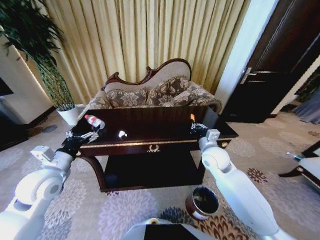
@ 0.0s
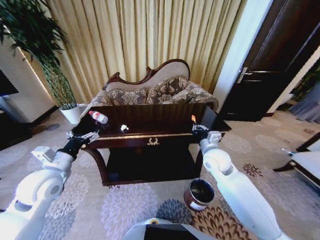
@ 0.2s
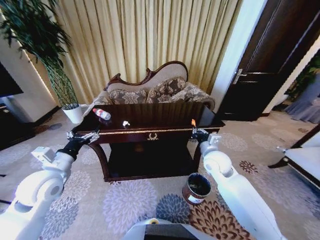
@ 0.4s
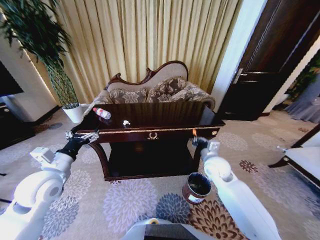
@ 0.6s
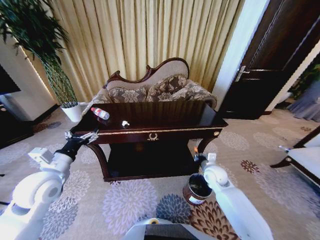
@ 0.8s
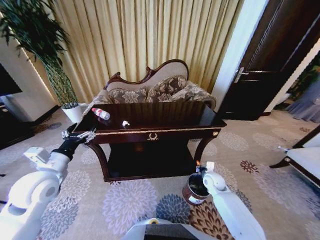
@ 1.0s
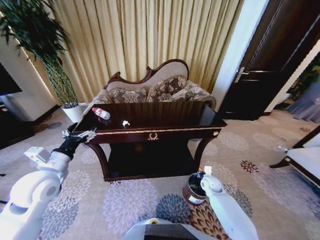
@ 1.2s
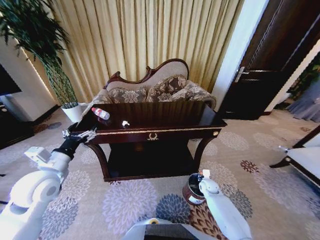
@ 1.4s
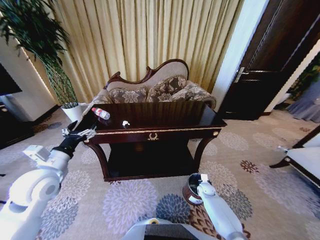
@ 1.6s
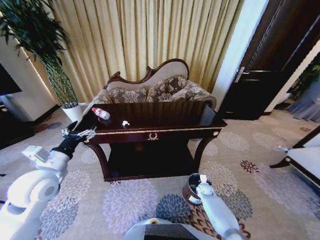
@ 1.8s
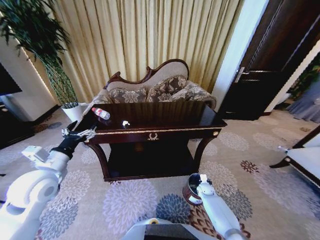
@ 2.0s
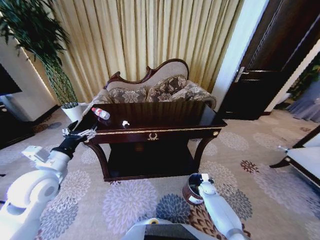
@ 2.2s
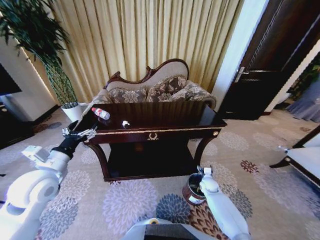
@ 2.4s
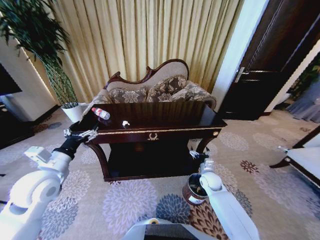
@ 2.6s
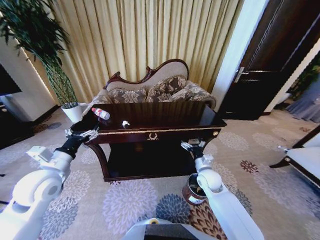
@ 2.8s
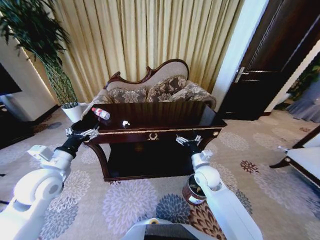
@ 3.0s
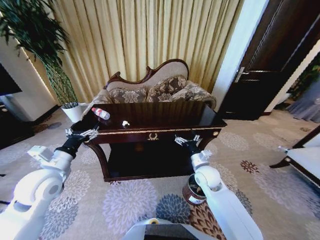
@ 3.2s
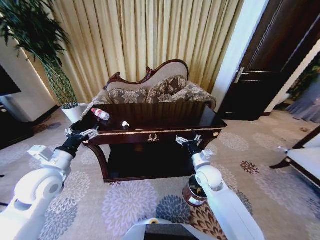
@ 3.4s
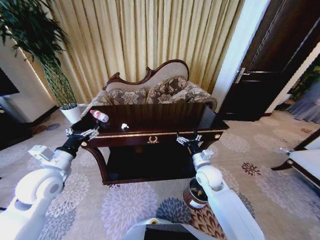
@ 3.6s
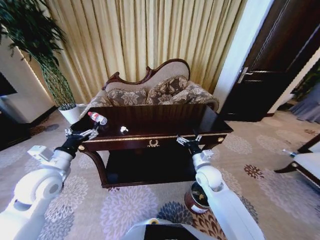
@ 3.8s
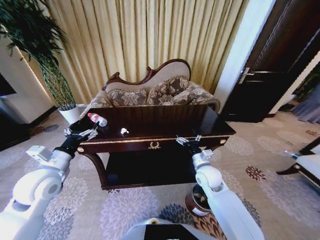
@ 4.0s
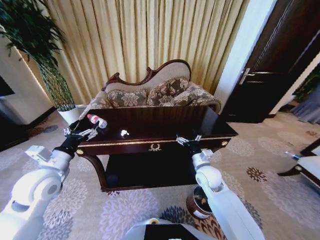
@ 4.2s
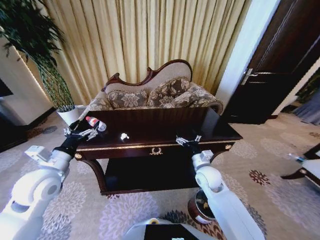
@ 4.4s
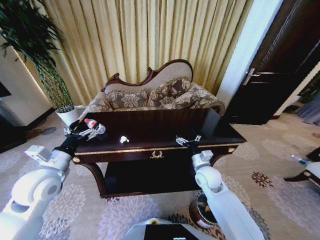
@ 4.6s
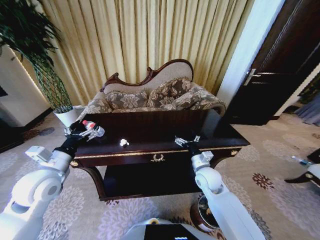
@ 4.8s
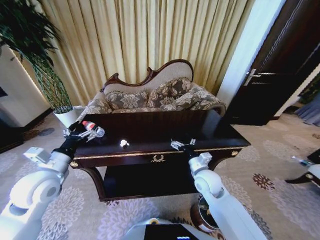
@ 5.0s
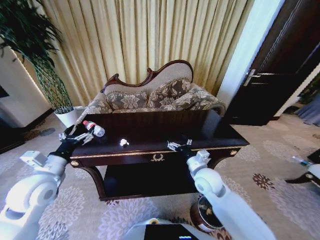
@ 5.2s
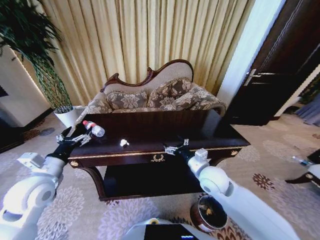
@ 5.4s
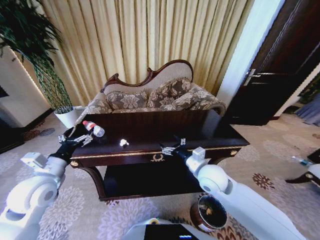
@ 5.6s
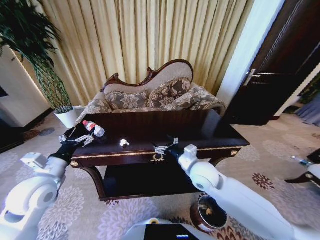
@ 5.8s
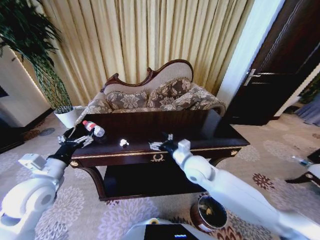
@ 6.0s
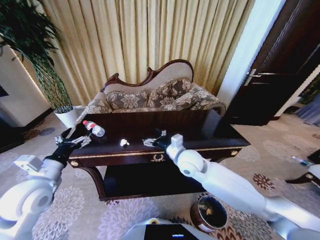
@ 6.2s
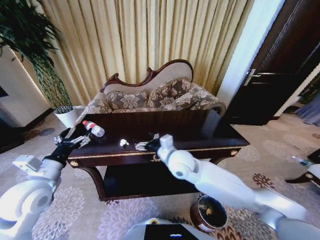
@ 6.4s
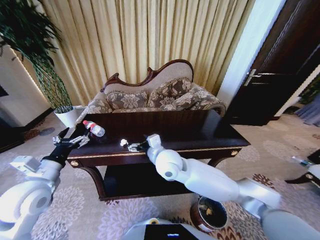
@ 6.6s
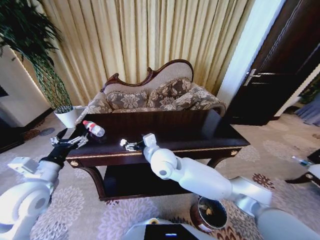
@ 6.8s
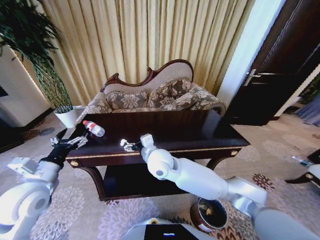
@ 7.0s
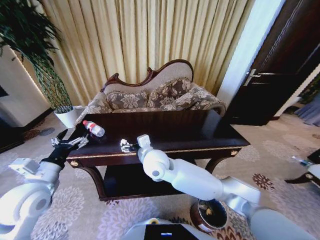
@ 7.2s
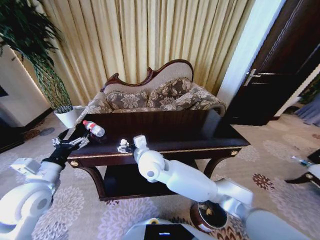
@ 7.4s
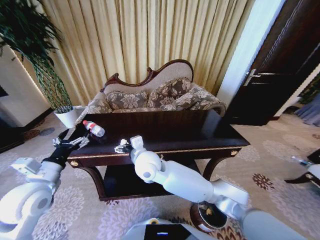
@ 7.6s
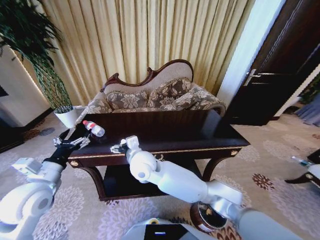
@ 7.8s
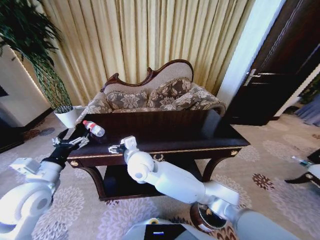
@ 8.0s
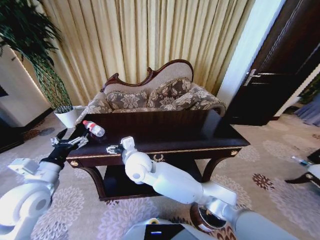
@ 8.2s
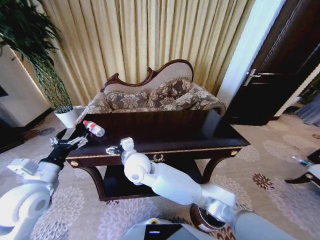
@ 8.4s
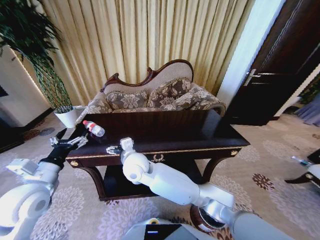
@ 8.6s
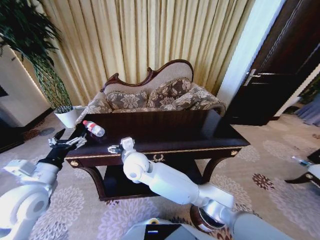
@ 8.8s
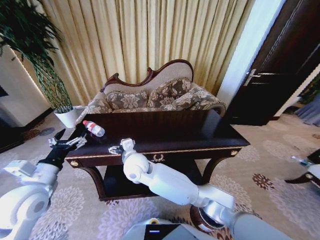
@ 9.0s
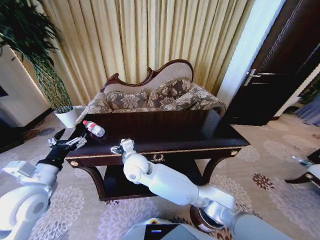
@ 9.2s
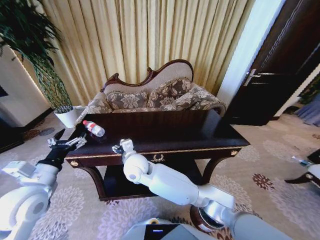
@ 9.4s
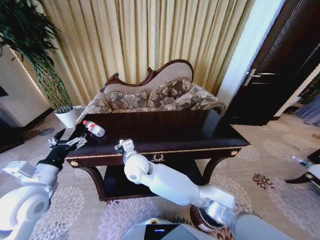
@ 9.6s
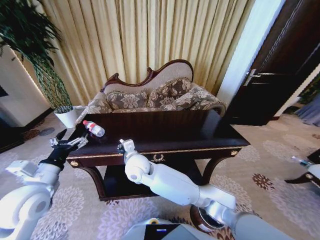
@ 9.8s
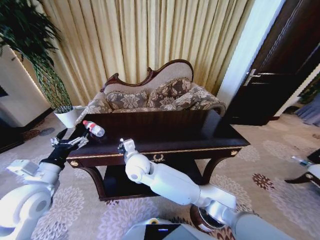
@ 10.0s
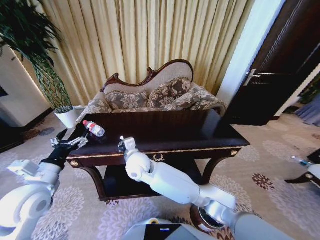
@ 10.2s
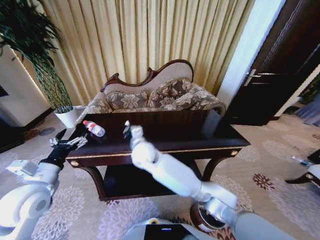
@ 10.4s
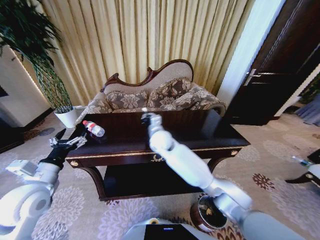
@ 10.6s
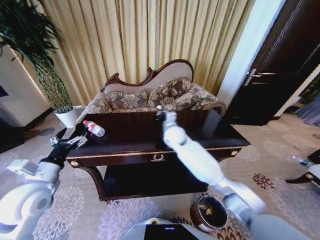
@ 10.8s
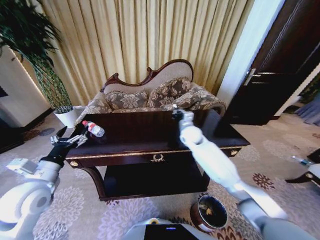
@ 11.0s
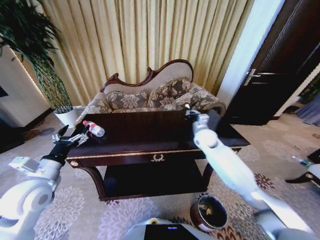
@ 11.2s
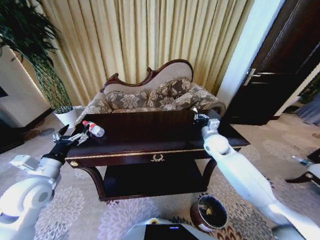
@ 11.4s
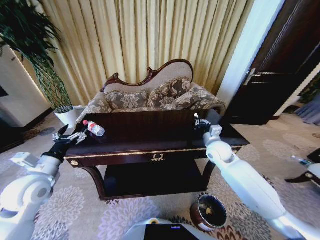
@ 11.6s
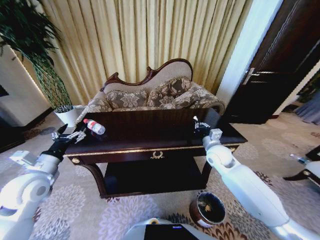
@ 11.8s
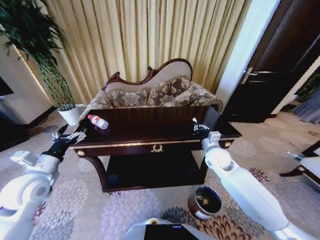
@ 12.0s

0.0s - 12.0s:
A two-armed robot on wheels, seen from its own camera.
Task of the whole recording: Move to the front of the table and place the trash on the table into the trash bin.
0.0s - 1.6s: The right gripper moves downward, about 35 cm.
1.6s - 3.0s: The right gripper heads upward, covering roughly 25 cm, and opens its fingers.
4.4s - 6.0s: The right gripper moves upward and to the left, about 10 cm.
6.0s - 7.6s: The right gripper shifts about 20 cm to the left.
7.6s - 9.0s: The right gripper ends up some 5 cm from where it was.
9.0s - 10.4s: The right gripper is displaced forward by some 5 cm, and closes up.
10.4s - 12.0s: The right gripper moves to the right, roughly 30 cm.

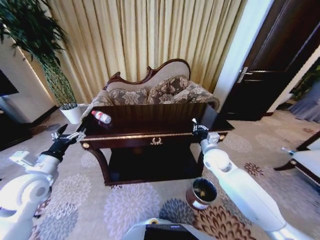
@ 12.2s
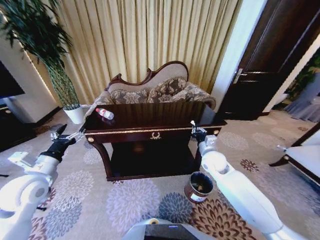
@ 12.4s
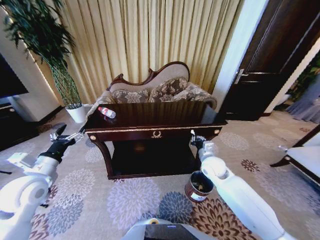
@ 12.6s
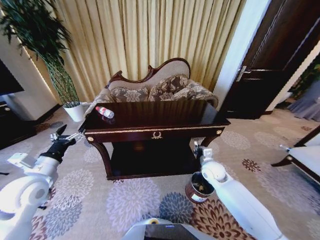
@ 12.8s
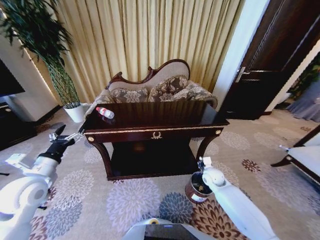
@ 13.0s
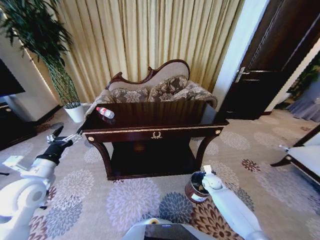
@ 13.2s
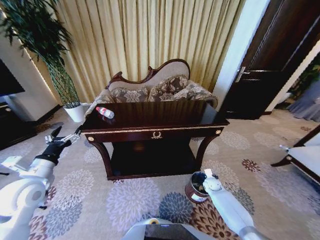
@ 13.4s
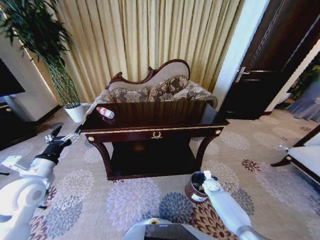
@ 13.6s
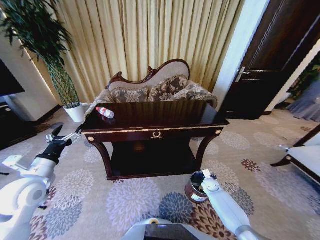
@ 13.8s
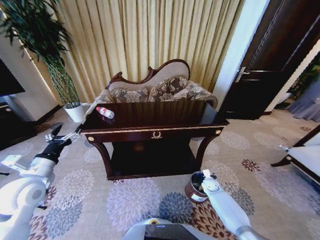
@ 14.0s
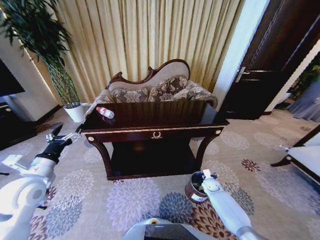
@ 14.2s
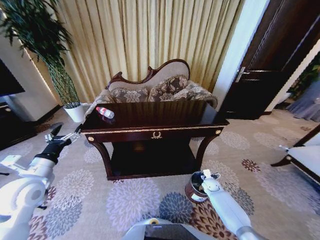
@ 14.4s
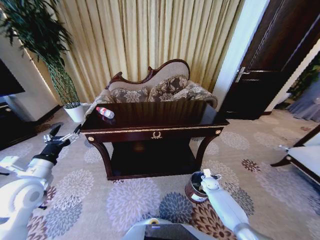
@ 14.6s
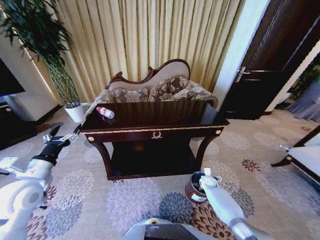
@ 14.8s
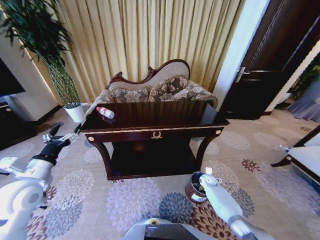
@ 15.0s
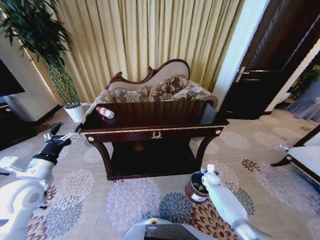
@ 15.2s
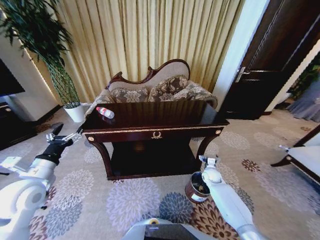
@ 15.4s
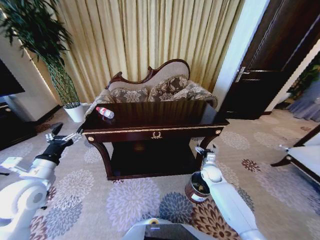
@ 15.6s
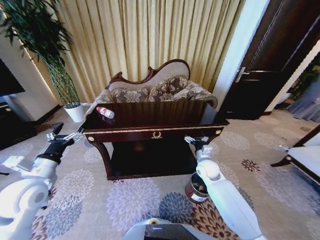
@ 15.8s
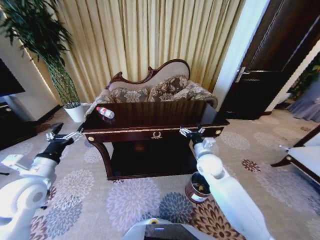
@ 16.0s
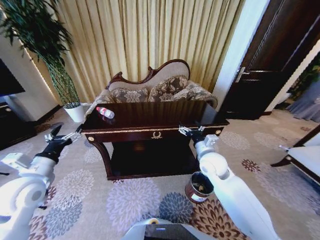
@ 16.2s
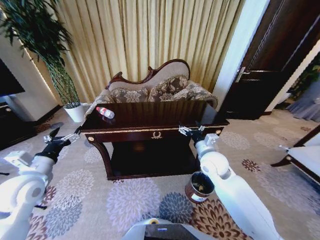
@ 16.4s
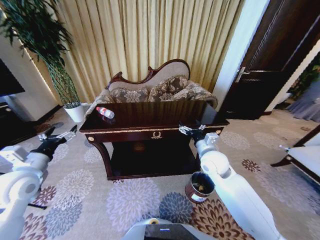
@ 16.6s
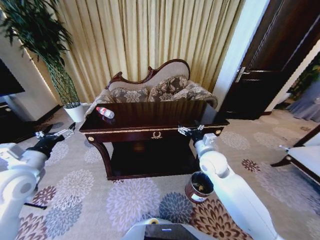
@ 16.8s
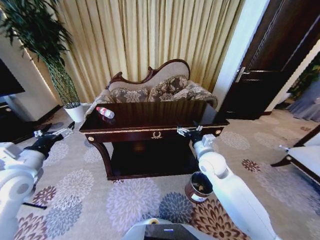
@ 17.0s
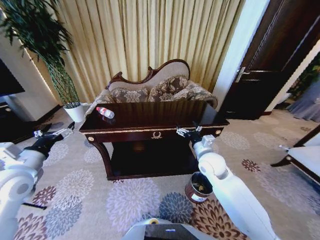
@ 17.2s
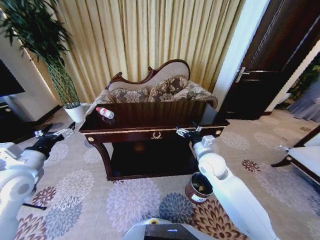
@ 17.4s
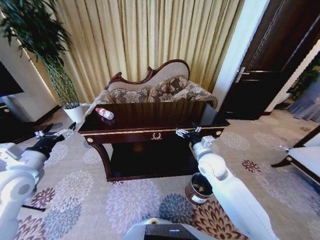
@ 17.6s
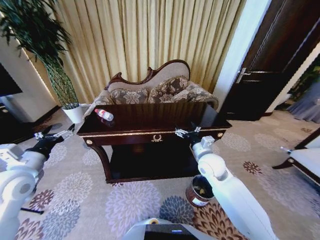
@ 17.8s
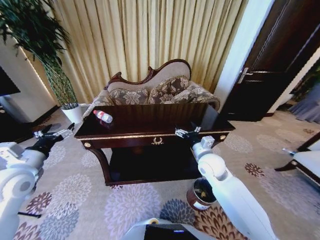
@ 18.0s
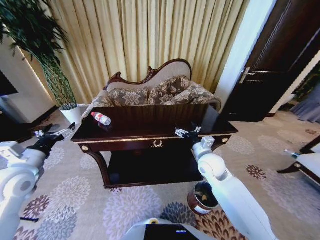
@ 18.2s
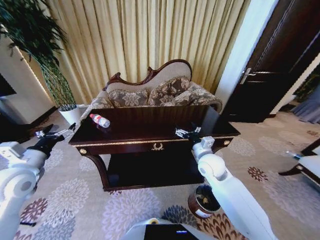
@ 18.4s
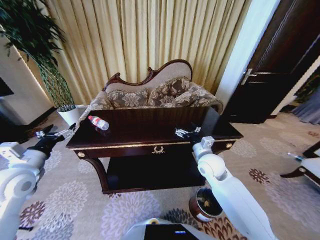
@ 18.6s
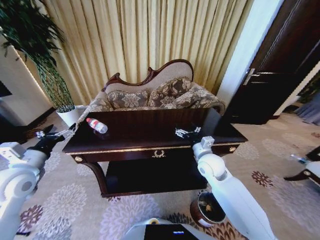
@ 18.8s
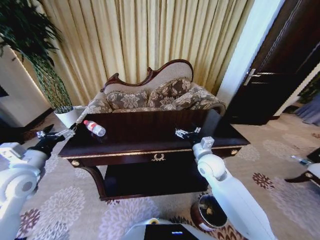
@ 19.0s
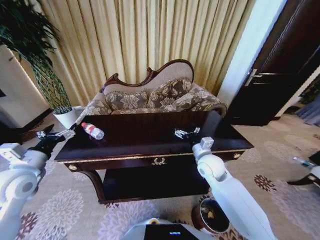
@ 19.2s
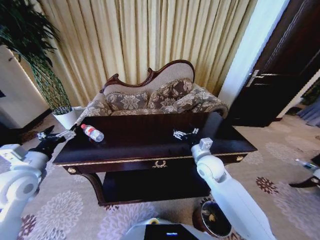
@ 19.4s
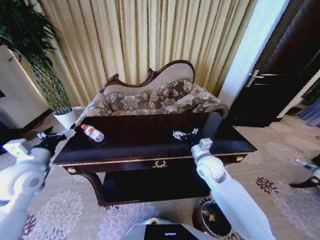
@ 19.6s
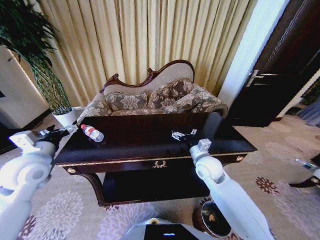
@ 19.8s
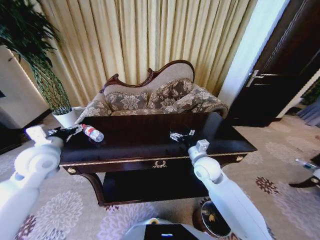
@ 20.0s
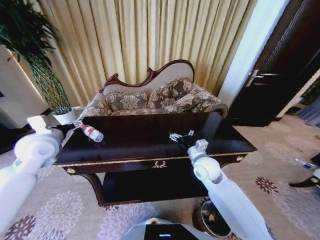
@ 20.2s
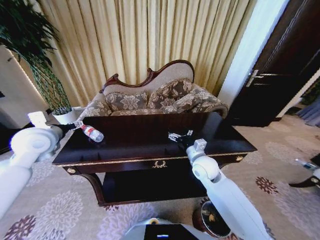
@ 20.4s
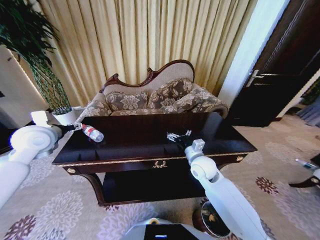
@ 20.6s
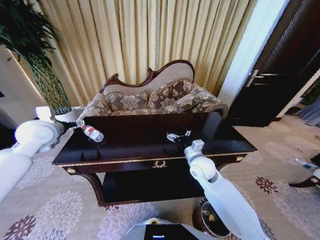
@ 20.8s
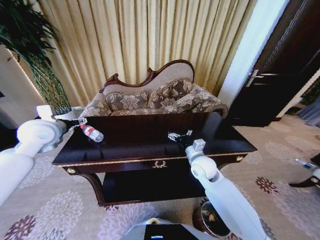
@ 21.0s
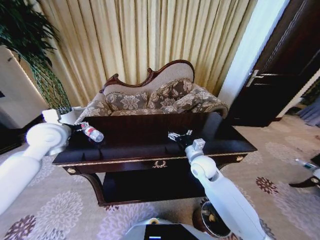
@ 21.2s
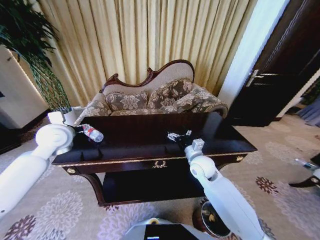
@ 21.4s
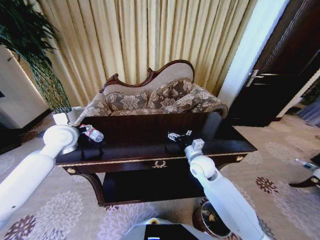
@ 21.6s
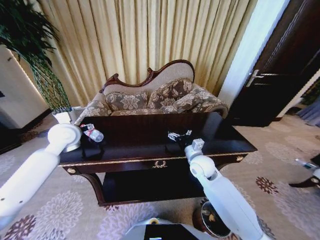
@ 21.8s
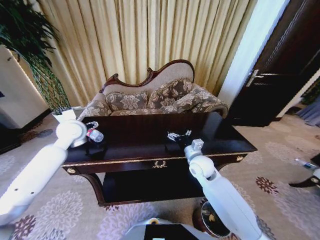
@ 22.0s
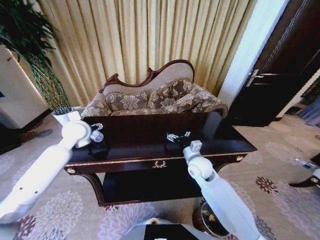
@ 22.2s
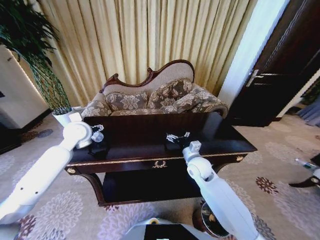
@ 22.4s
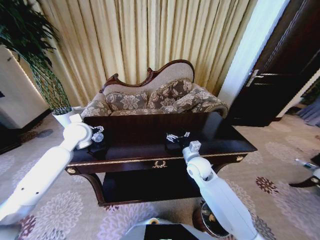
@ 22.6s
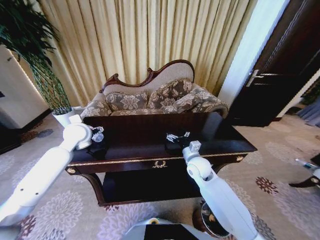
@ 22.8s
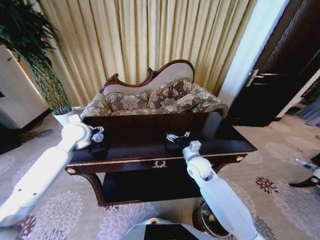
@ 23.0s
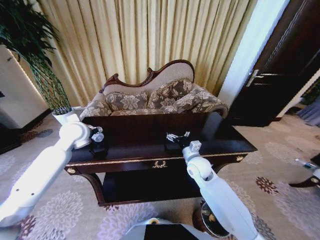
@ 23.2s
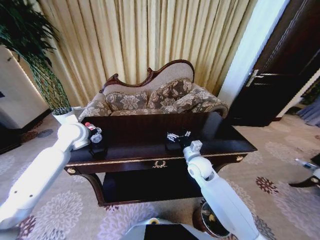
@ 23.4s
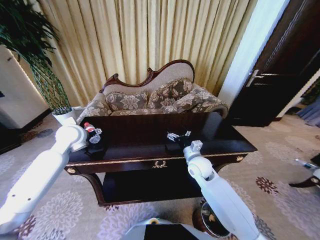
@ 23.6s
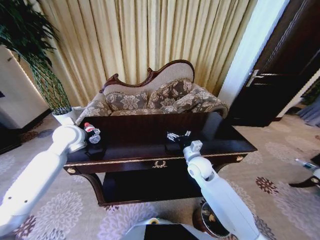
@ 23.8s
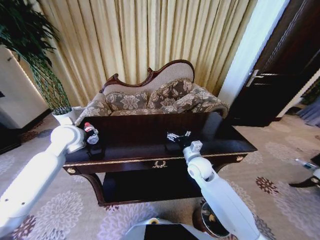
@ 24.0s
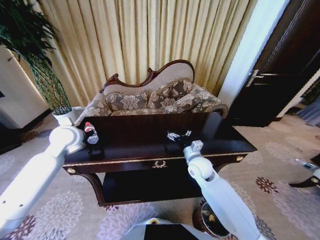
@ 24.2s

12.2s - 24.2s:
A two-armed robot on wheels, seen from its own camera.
Task of the whole recording: Move to the front of the table and place the trash on the table into the trash bin.
12.2s - 13.8s: The right gripper is displaced downward by about 30 cm.
13.8s - 15.2s: The right gripper opens up.
15.2s - 16.6s: The right gripper travels upward and to the left by about 35 cm.
19.8s - 21.2s: The left gripper moves forward, approximately 10 cm.
21.2s - 22.6s: The left gripper goes some 5 cm forward and to the right.
22.6s - 24.2s: The left gripper closes.
